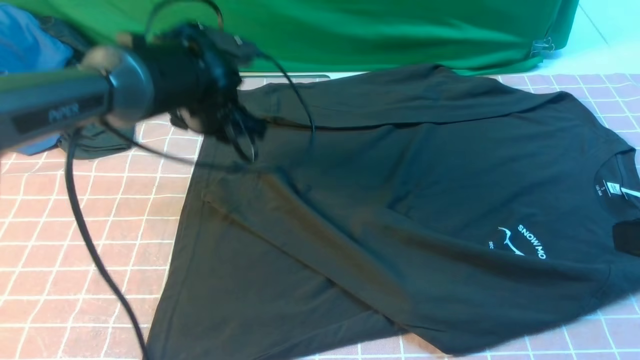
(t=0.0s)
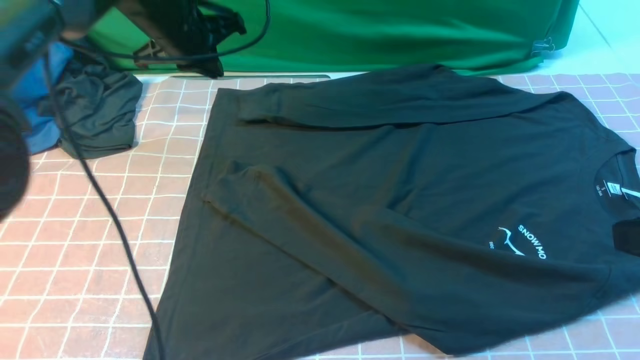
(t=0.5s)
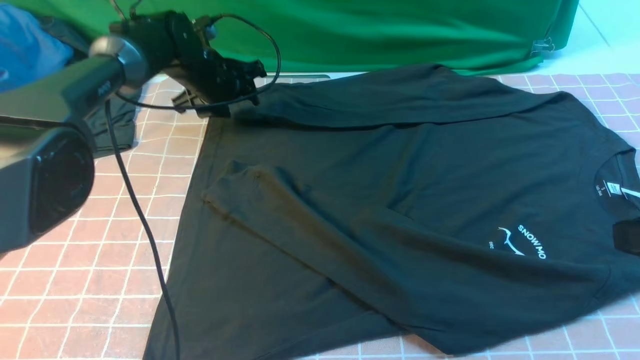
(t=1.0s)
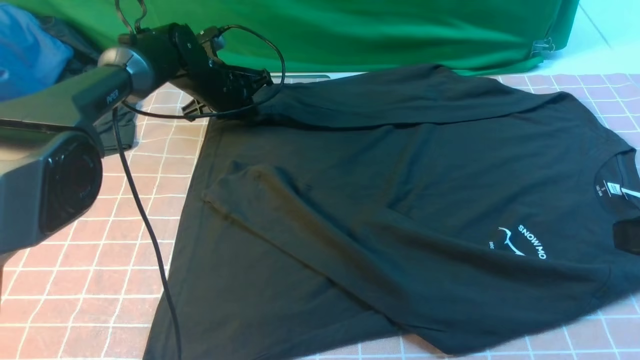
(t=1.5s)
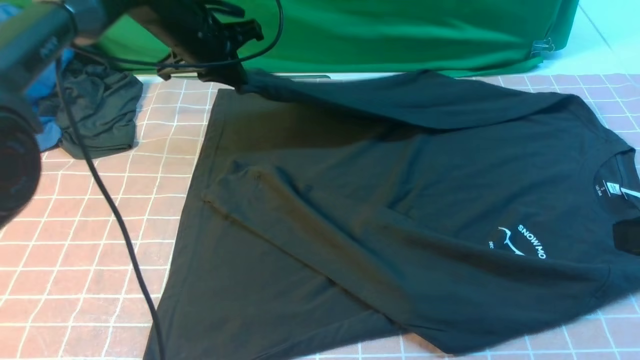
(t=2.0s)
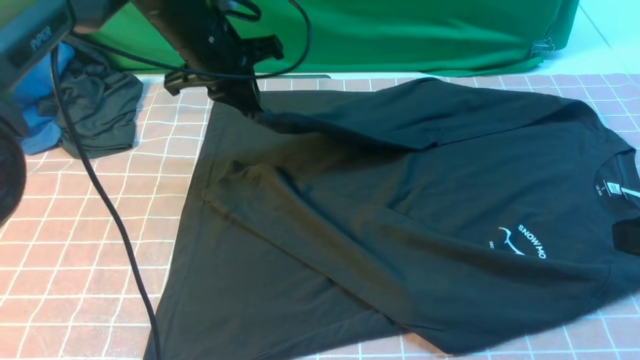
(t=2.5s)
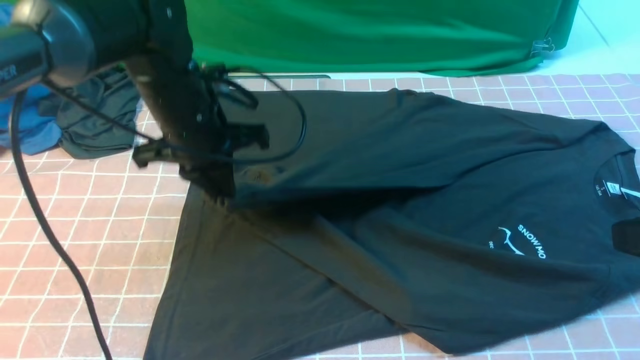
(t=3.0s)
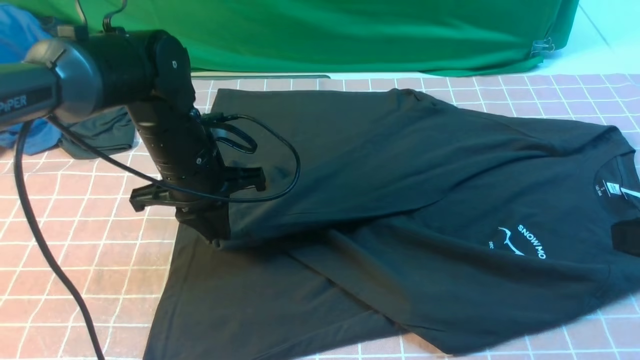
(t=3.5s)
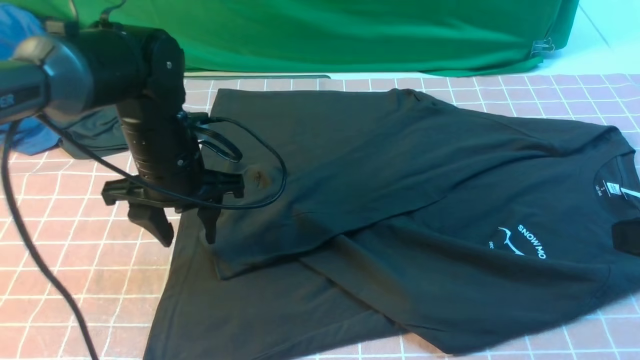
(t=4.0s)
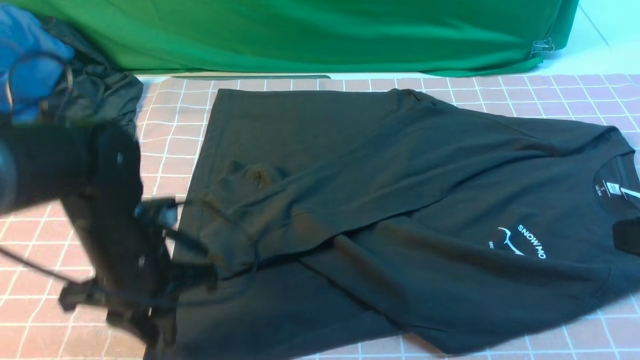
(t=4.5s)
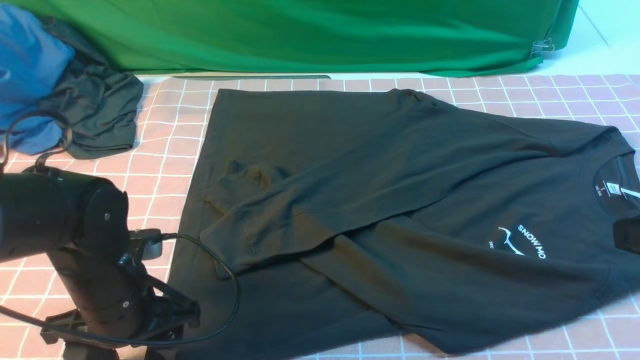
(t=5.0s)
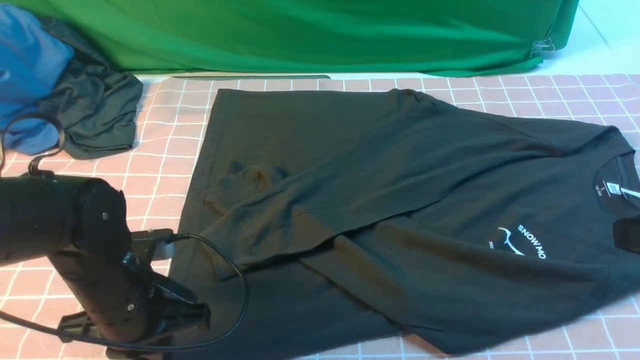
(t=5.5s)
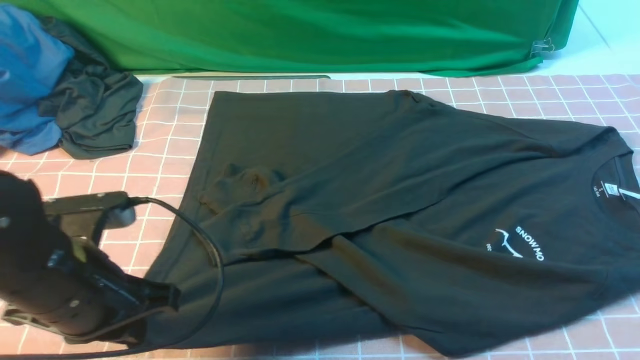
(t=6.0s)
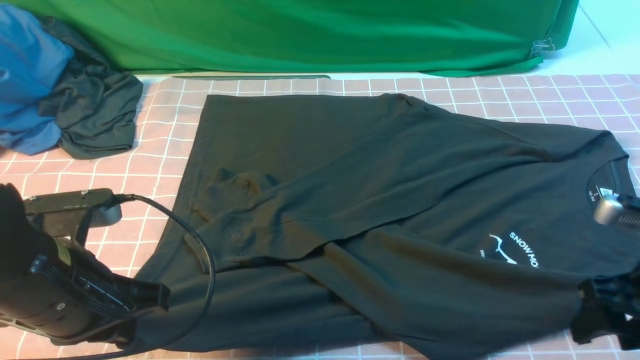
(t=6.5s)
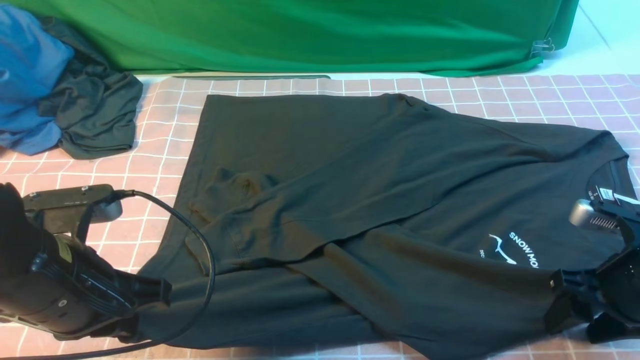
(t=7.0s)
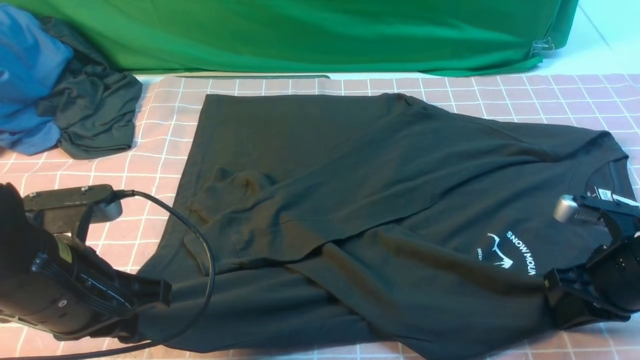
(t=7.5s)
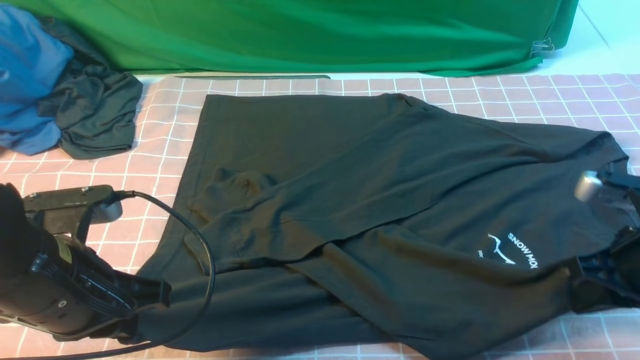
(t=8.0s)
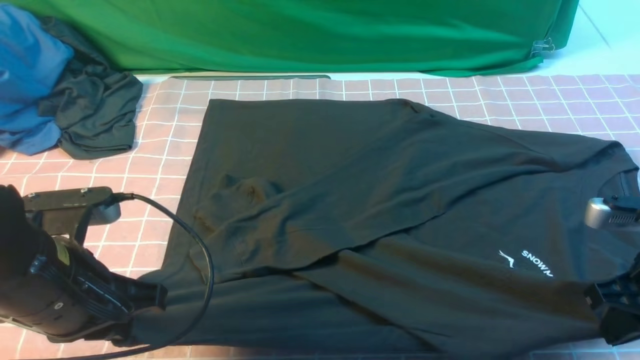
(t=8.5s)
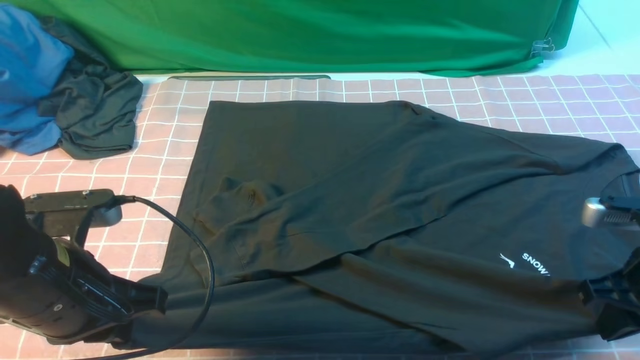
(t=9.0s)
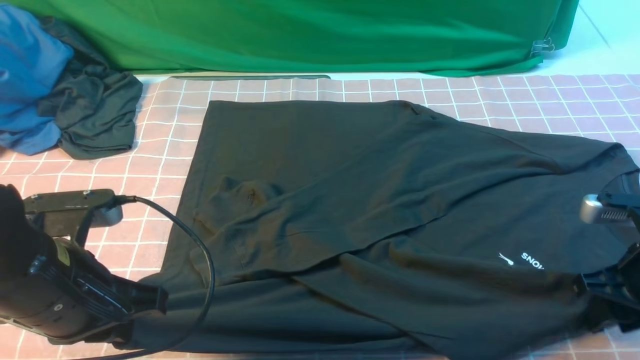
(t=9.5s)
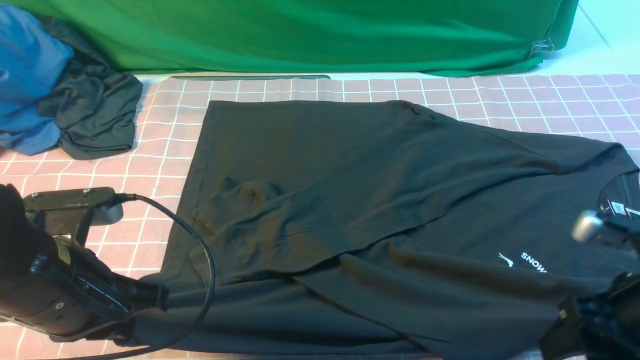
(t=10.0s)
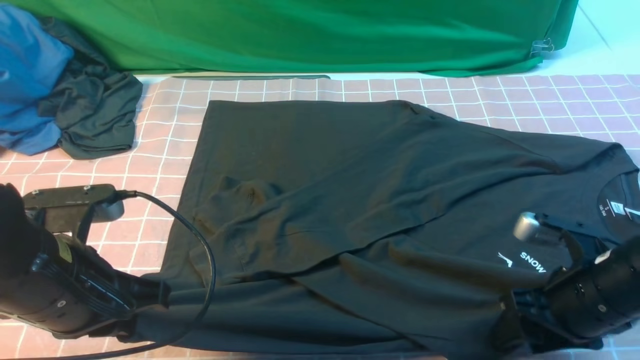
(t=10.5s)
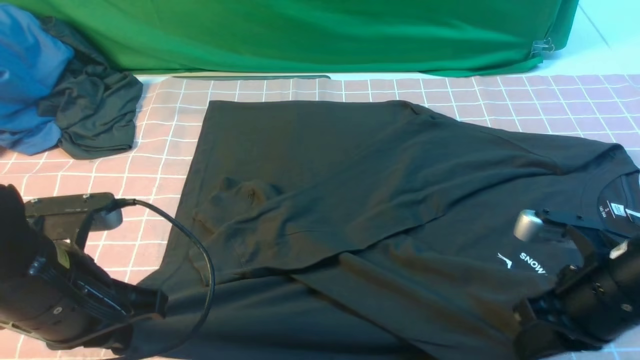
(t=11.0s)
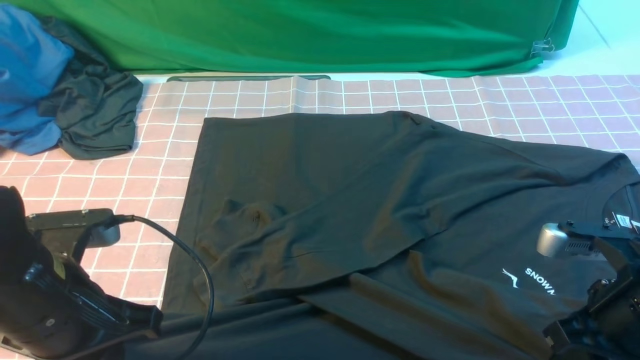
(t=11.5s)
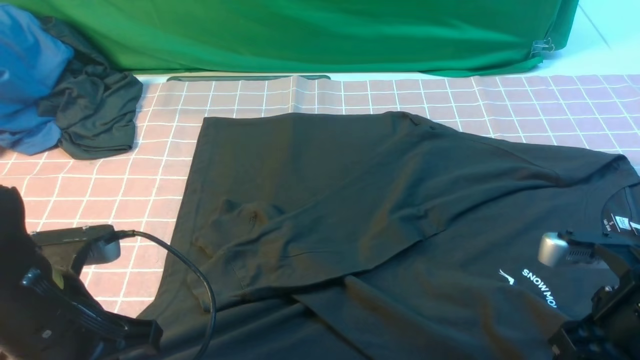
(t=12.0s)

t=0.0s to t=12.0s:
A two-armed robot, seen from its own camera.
Step, t=0.0s to t=1.5s: use the left arm to clamp the cuff farthest from it.
Step, t=2.0s to t=4.0s: use the left arm to drag and drop the cuff onto the cuff closest to the left arm.
t=0.0s to t=2.0s: The left gripper is displaced forward by some 5 cm, and closes.
t=2.0s to t=4.0s: The left gripper heads backward, covering some 15 cm, and opens.
t=4.0s to t=6.0s: The left gripper travels backward by approximately 15 cm, and closes up.
t=6.0s to t=8.0s: The right gripper goes about 10 cm downward and forward, and opens and closes again.
t=8.0s to t=10.0s: The right gripper opens its fingers.
t=10.0s to t=12.0s: The right gripper closes, then reopens.

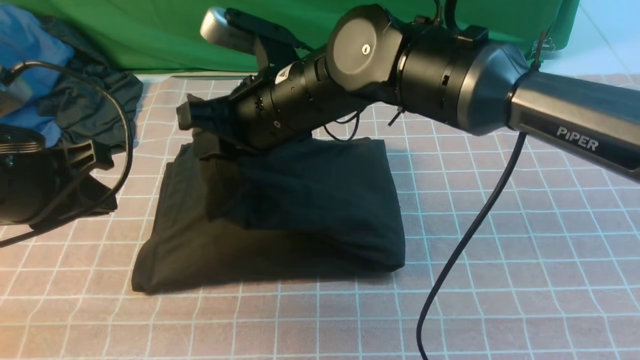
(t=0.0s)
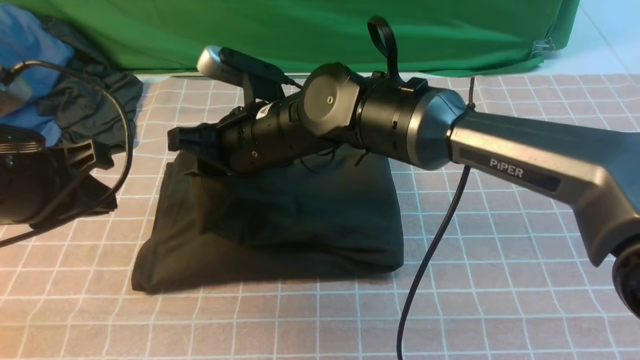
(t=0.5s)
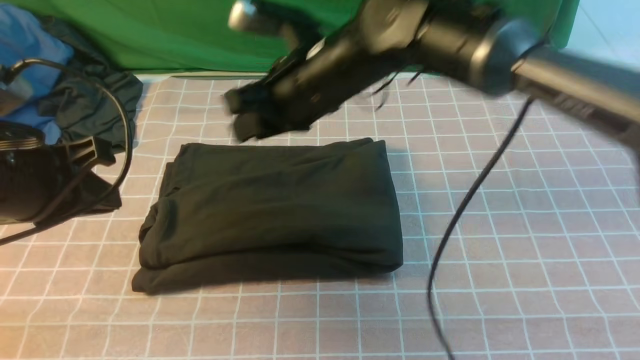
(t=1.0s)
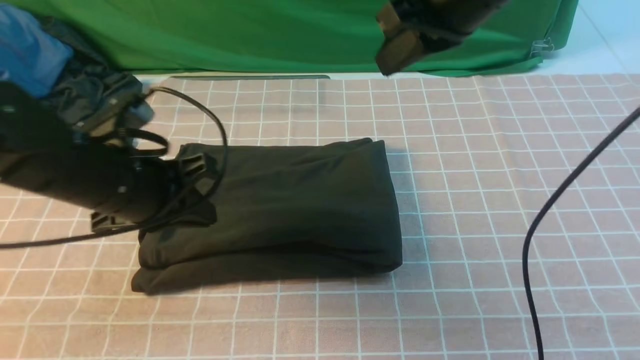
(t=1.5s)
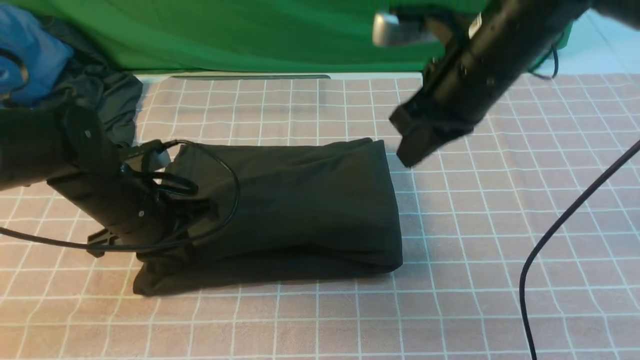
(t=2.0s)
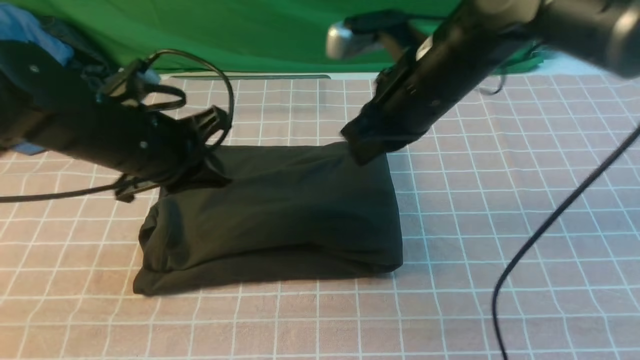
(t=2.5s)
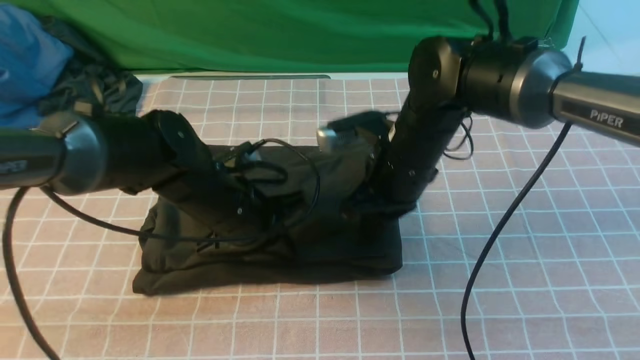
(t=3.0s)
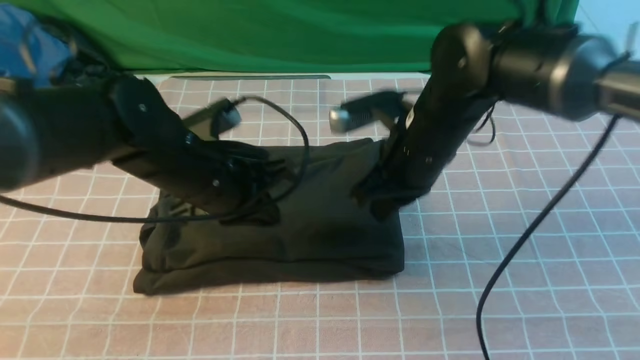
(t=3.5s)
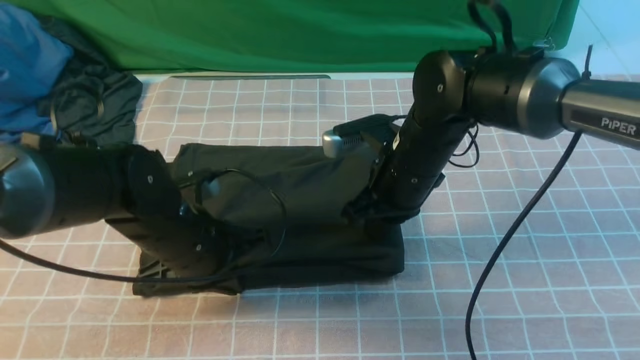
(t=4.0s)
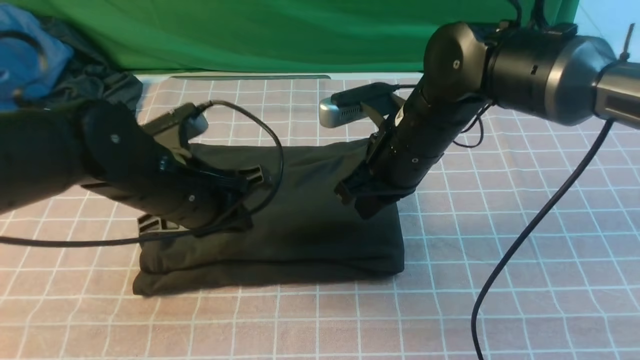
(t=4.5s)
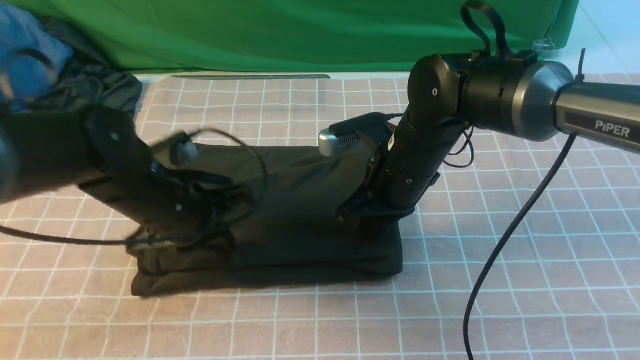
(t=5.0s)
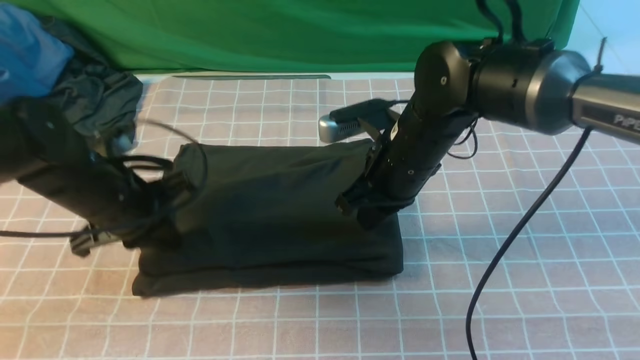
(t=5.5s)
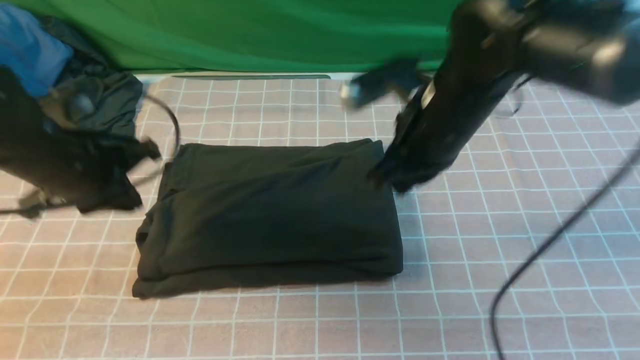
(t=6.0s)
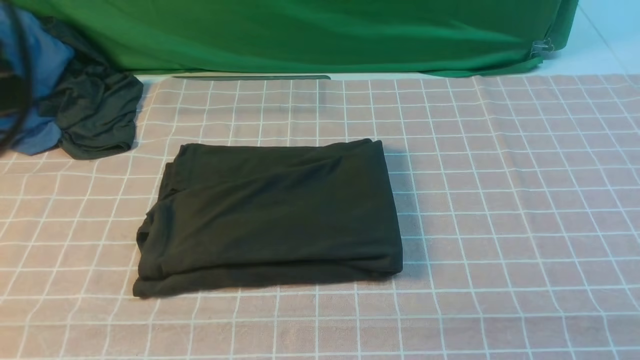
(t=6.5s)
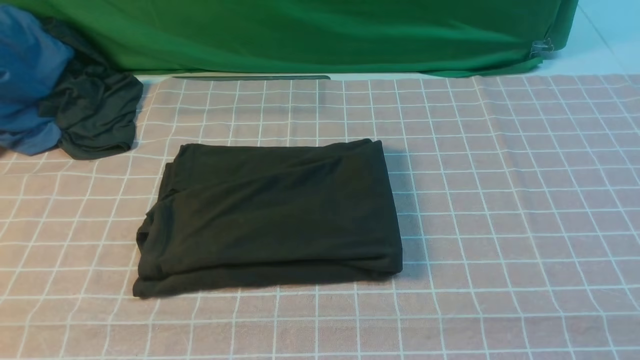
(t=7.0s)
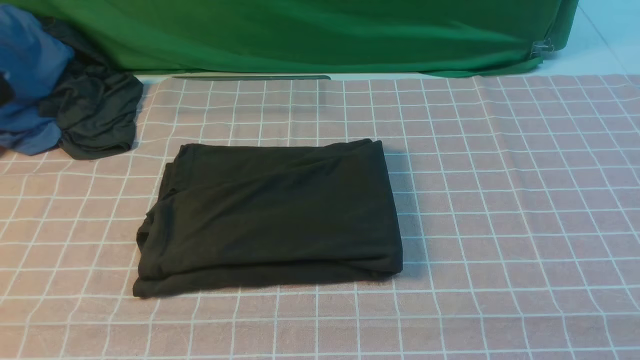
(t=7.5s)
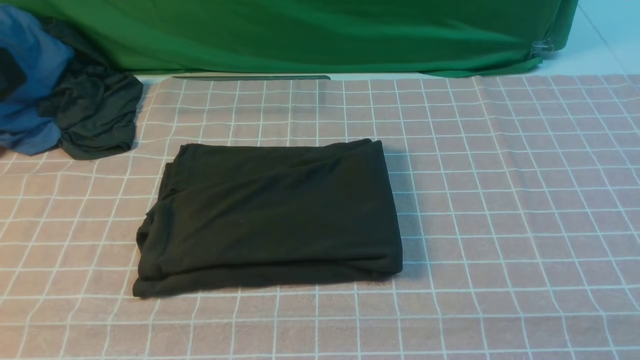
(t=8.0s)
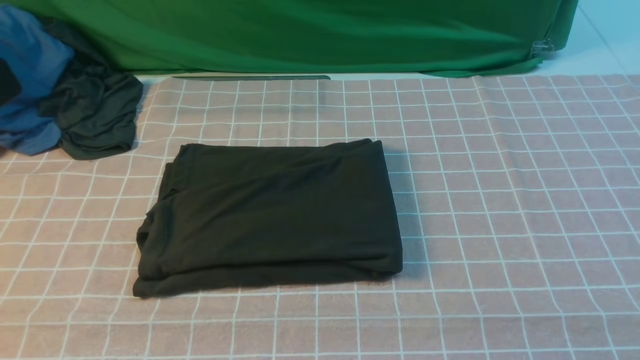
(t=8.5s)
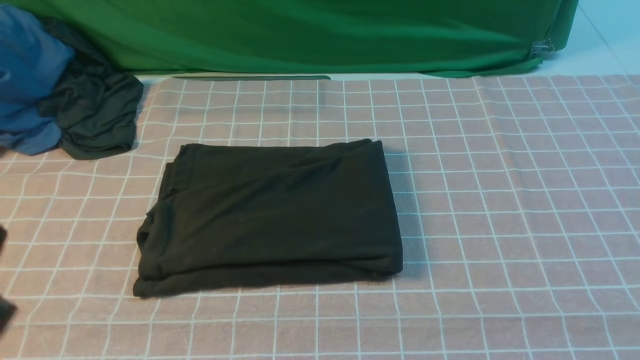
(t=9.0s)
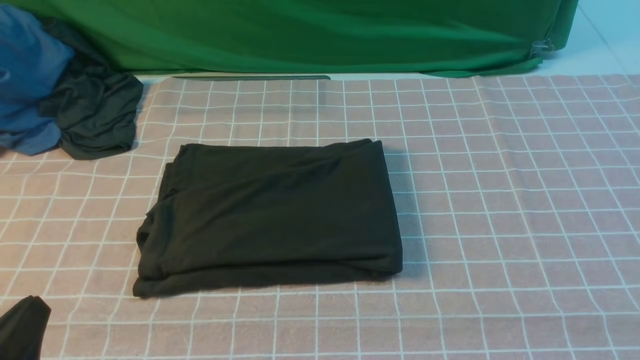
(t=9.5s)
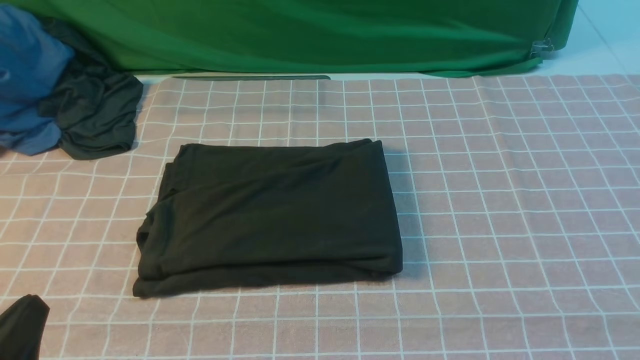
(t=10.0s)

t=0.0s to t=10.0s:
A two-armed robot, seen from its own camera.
t=0.0s to t=2.0s: The left gripper heads downward, forward and to the right, covering roughly 15 cm. The right gripper is displaced to the right by approximately 15 cm, and opens, then closes once more.
t=2.0s to t=4.0s: The left gripper heads to the right, covering some 5 cm. Meanwhile the right gripper moves downward, roughly 10 cm.
t=4.0s to t=6.0s: The right gripper heads upward, covering roughly 10 cm. The left gripper is displaced to the left and upward by roughly 15 cm.
t=6.0s to t=8.0s: The left gripper is displaced backward and upward by roughly 25 cm. Meanwhile the right gripper goes about 40 cm backward and to the right.
t=8.0s to t=10.0s: The left gripper goes about 20 cm downward.
